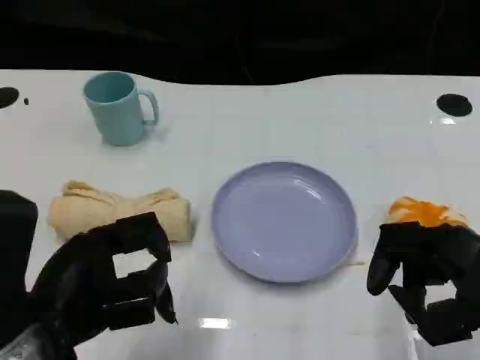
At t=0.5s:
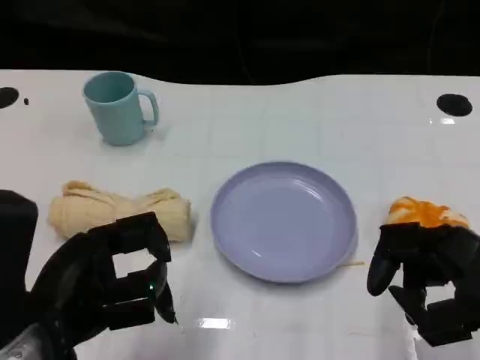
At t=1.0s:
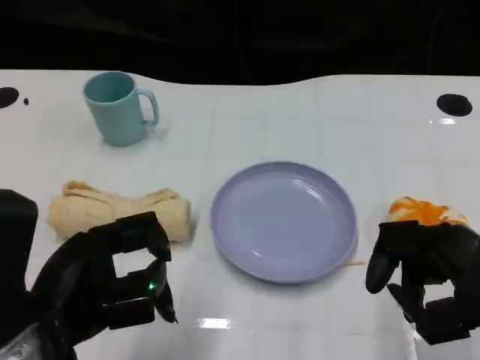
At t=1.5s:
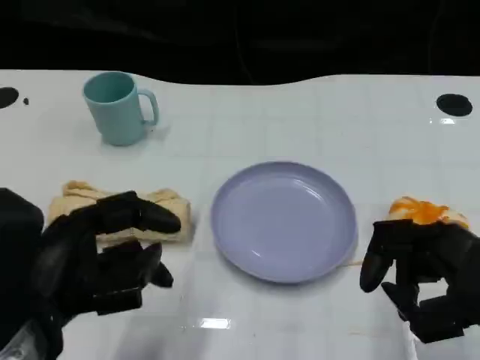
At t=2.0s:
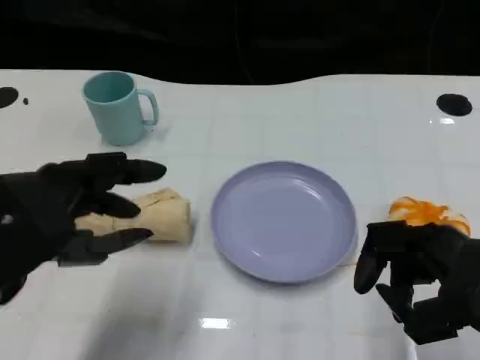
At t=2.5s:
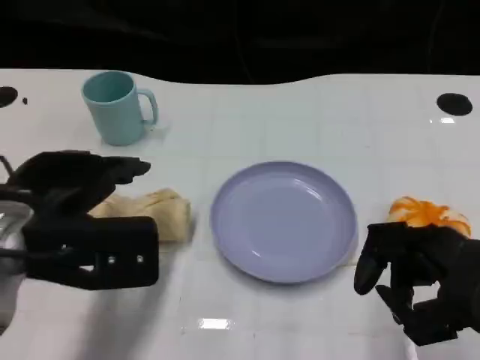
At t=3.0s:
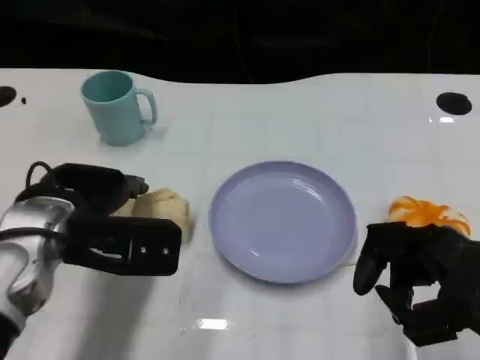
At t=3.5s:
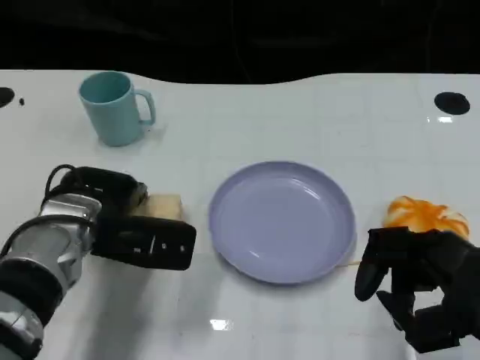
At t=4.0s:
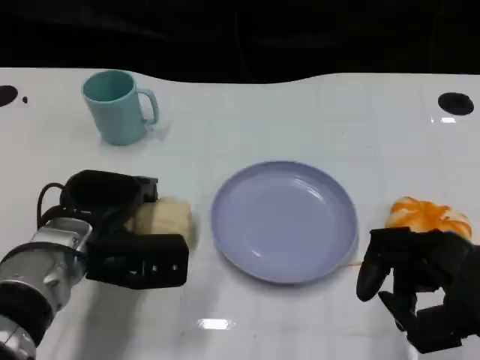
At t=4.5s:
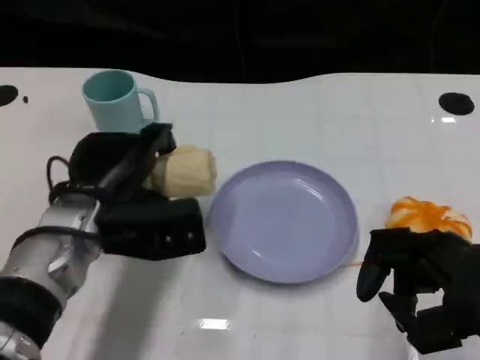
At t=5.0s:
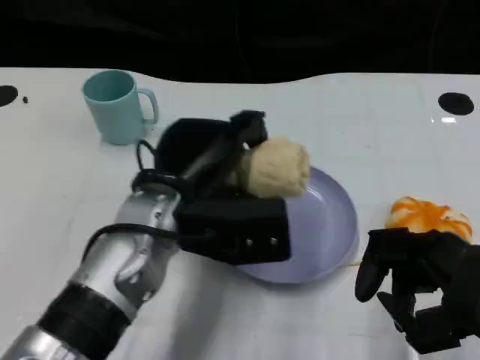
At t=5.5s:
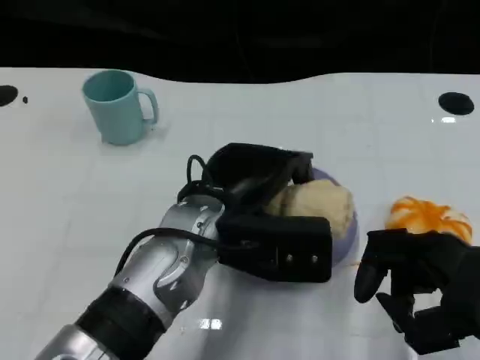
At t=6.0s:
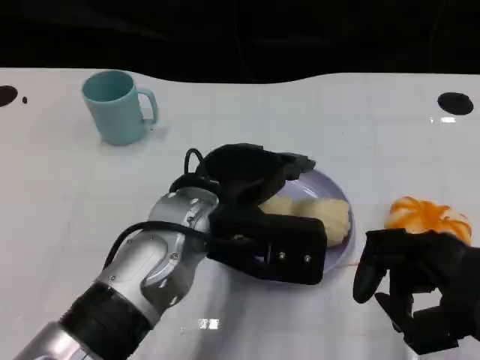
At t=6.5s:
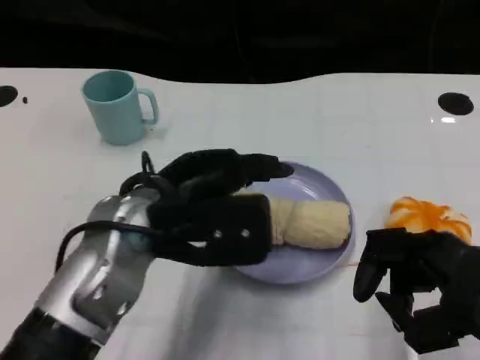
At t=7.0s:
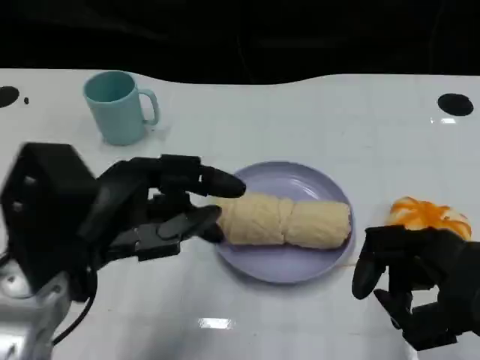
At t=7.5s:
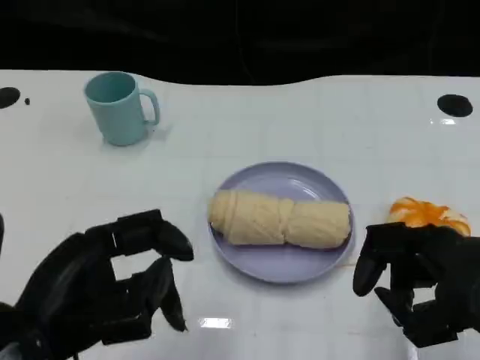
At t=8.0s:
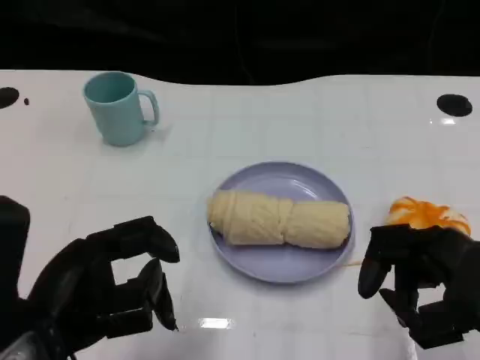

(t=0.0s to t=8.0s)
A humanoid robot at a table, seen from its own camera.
Task of the whole recording: Grasp the towel on the left side of the plate with the left hand and place it into the plate.
t=0.0s - t=2.0s: The left hand ends up roughly 5 cm from where it was.
t=2.0s - t=4.0s: The left hand heads downward, forward and to the right, covering some 15 cm.
t=4.0s - t=6.0s: The left hand heads to the right and upward, covering some 15 cm.
t=6.0s - t=8.0s: The left hand goes about 20 cm to the left and backward.

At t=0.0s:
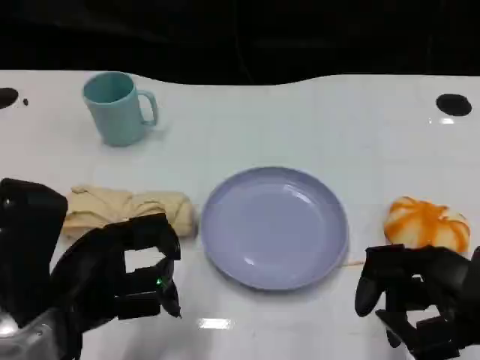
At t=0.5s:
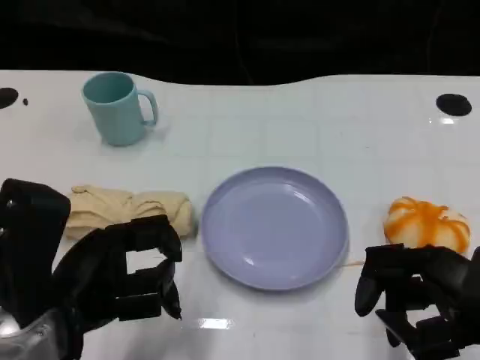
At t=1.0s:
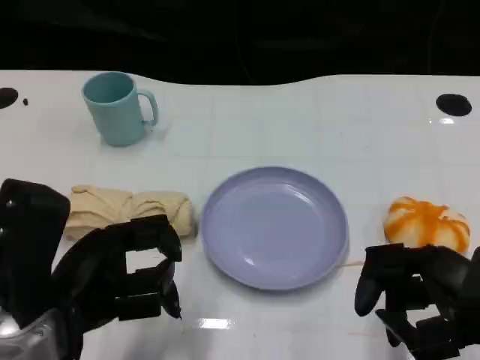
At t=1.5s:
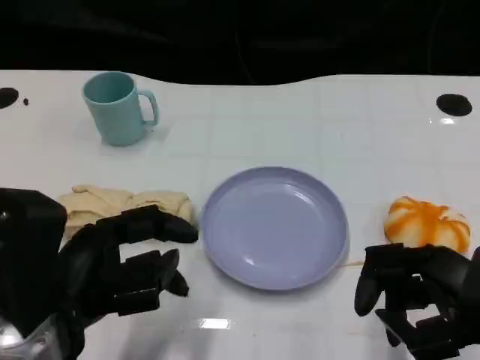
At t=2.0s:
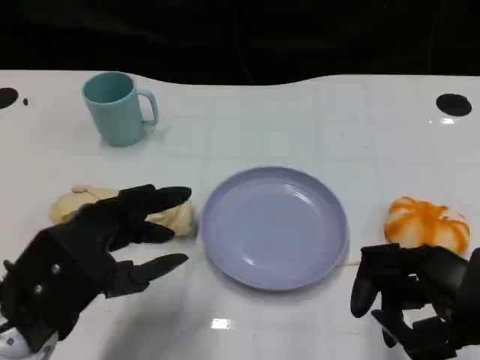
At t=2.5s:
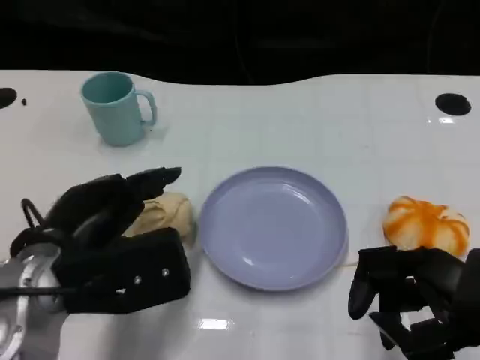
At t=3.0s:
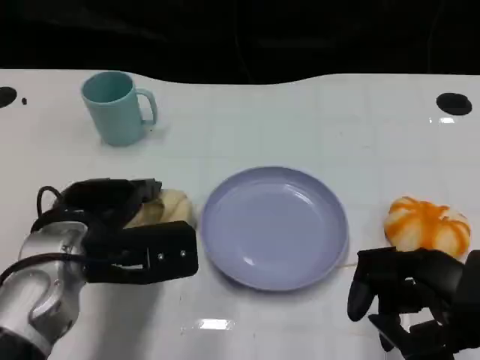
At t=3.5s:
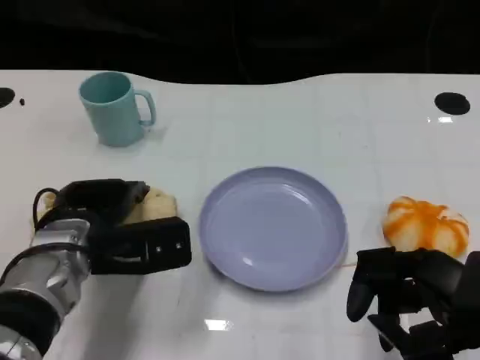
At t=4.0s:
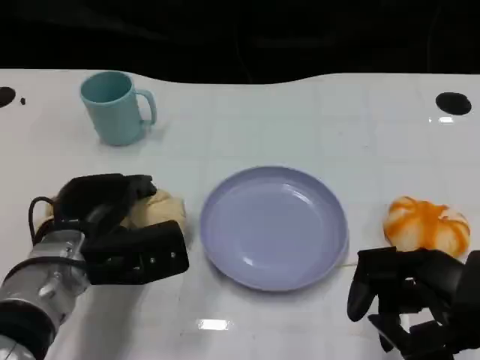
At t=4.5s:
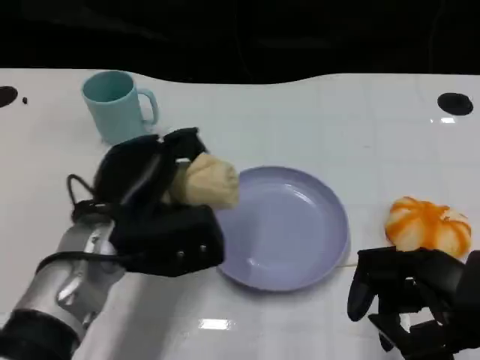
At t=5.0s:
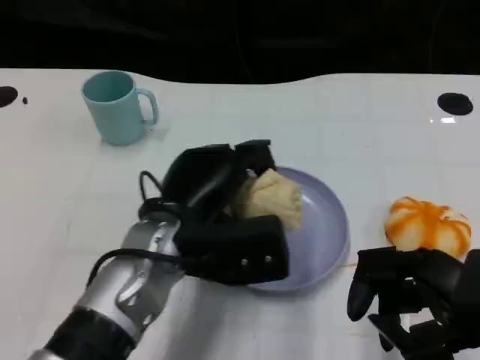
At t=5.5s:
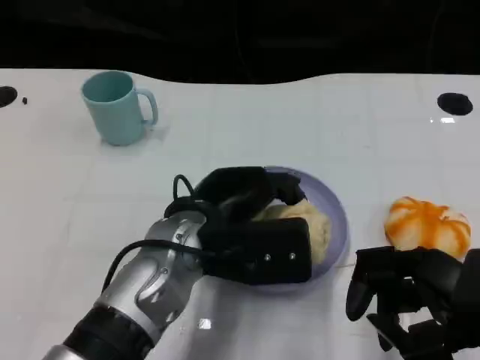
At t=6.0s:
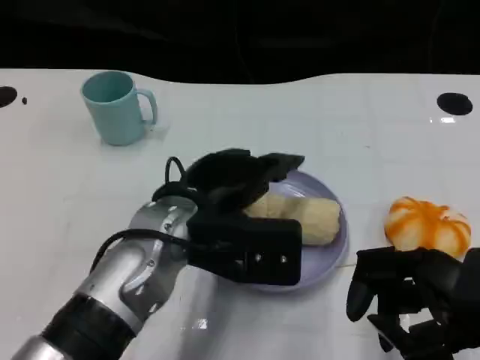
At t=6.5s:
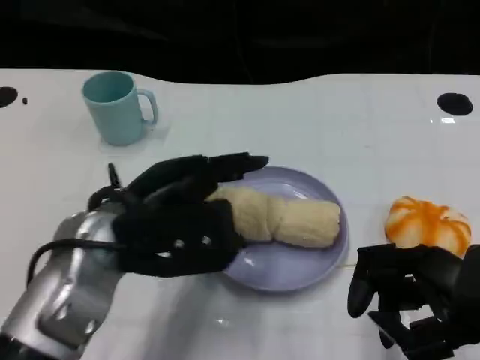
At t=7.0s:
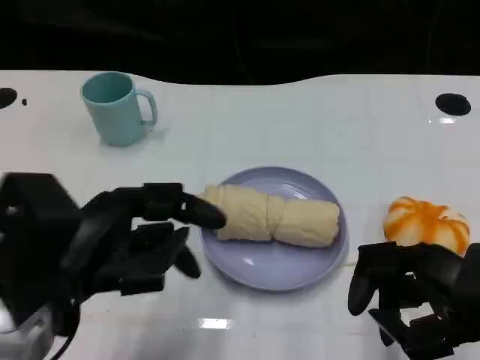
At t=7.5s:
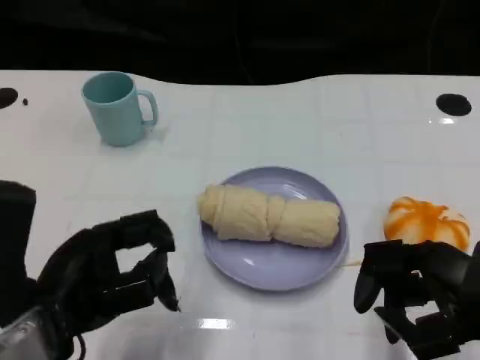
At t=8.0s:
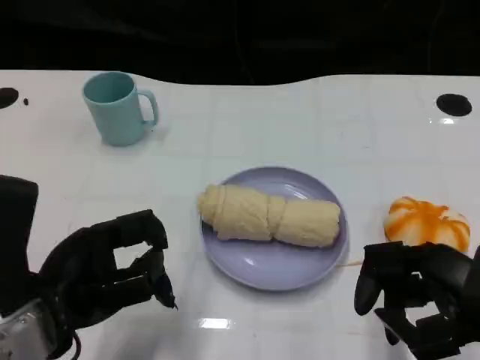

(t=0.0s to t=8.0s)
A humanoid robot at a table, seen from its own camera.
Task of the whole recording: Grasp the towel on the left side of the plate with the left hand and place it into the plate.
t=2.0s - t=4.0s: The left hand shifts approximately 10 cm forward and downward.
t=4.0s - t=6.0s: The left hand goes about 10 cm to the right and upward.
t=6.0s - t=8.0s: The left hand goes some 15 cm to the left and backward.
